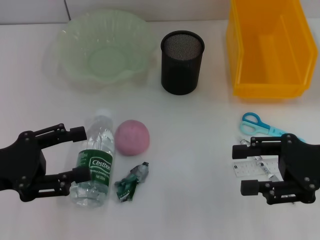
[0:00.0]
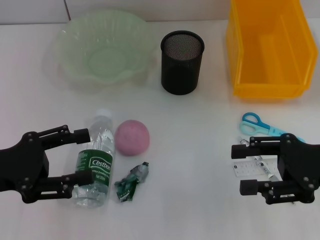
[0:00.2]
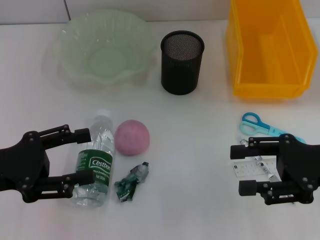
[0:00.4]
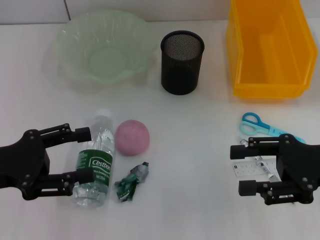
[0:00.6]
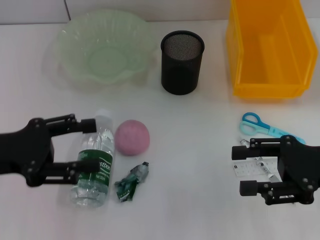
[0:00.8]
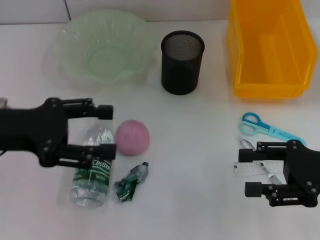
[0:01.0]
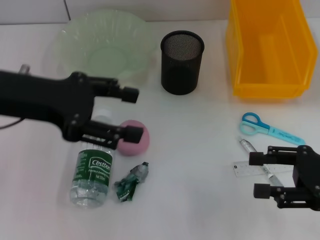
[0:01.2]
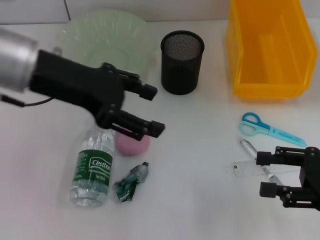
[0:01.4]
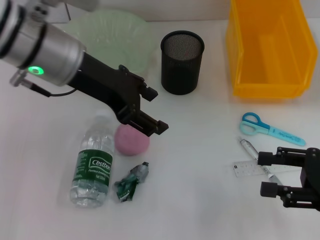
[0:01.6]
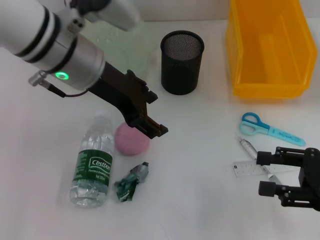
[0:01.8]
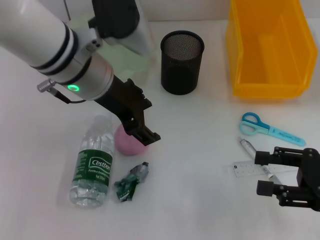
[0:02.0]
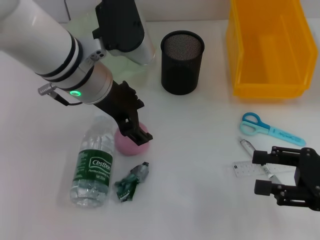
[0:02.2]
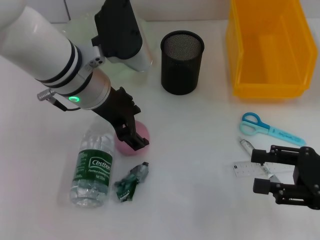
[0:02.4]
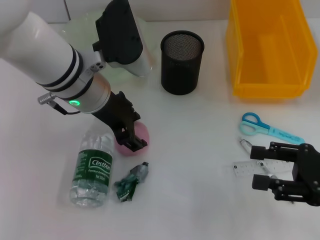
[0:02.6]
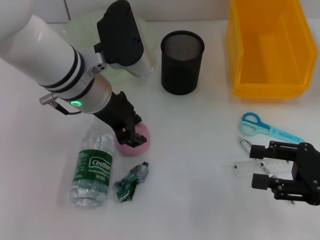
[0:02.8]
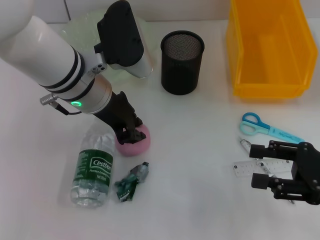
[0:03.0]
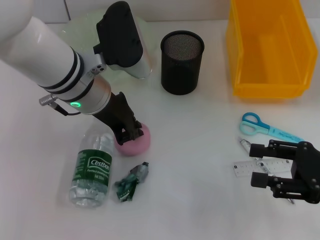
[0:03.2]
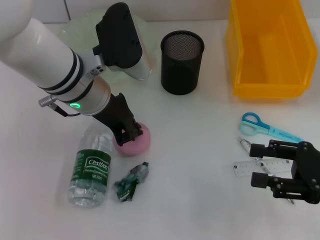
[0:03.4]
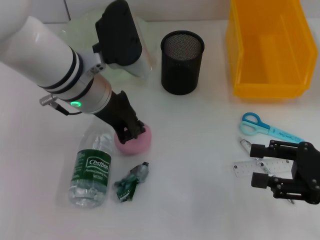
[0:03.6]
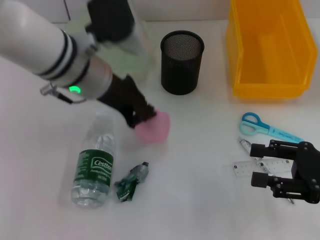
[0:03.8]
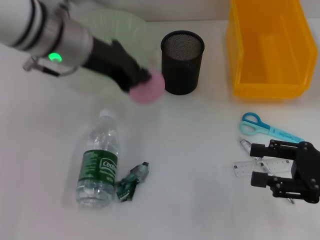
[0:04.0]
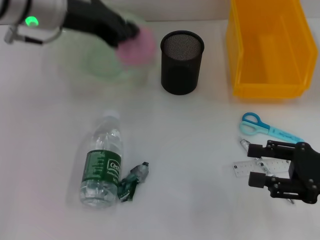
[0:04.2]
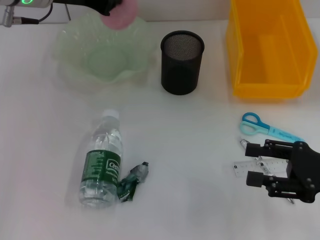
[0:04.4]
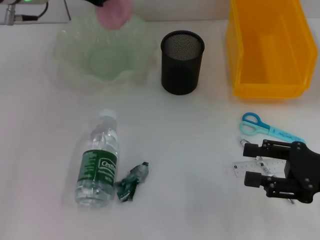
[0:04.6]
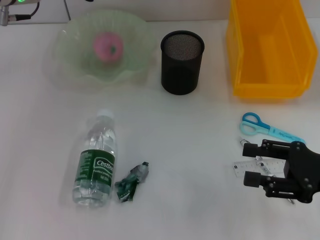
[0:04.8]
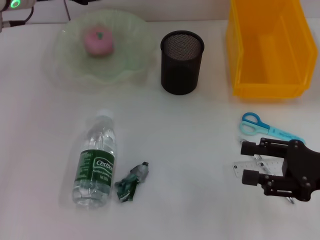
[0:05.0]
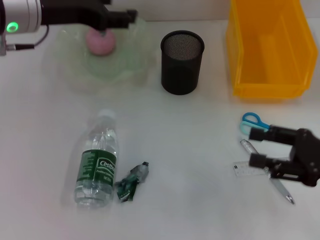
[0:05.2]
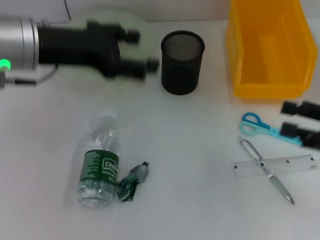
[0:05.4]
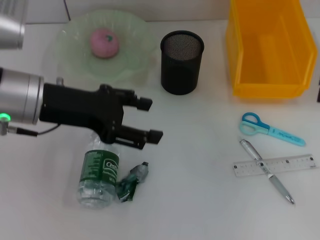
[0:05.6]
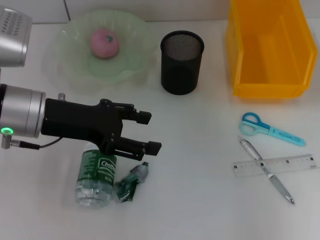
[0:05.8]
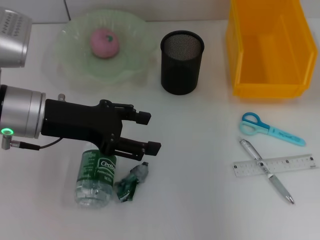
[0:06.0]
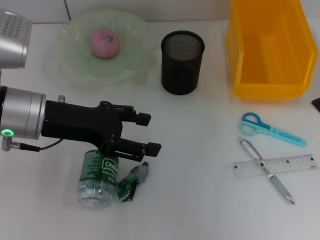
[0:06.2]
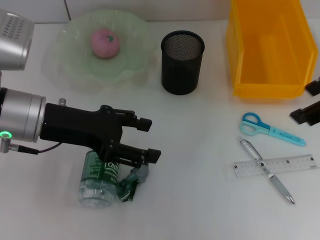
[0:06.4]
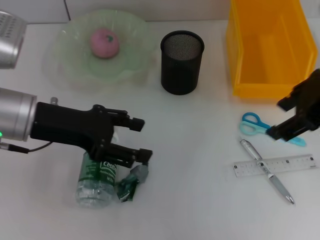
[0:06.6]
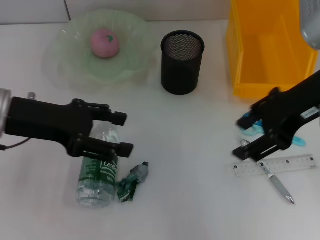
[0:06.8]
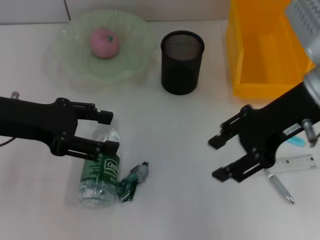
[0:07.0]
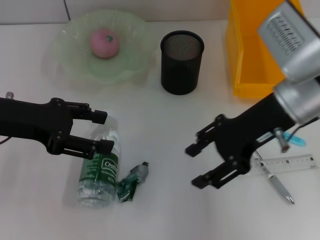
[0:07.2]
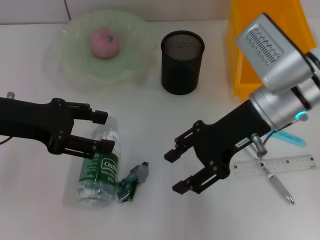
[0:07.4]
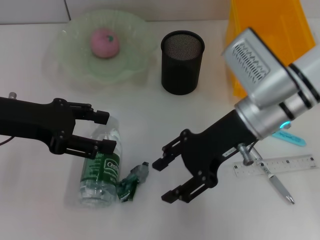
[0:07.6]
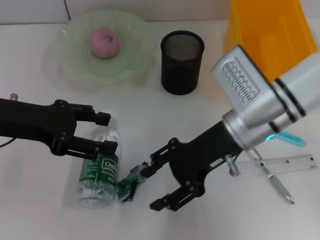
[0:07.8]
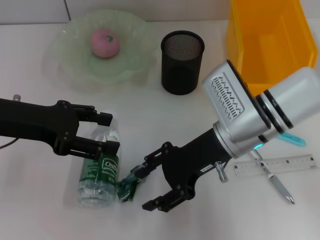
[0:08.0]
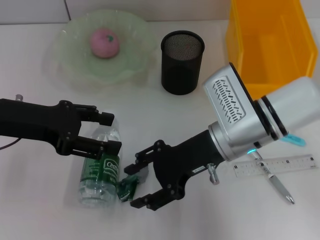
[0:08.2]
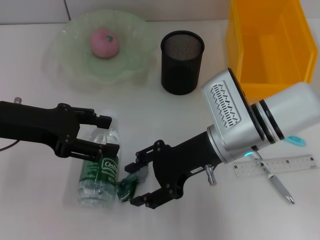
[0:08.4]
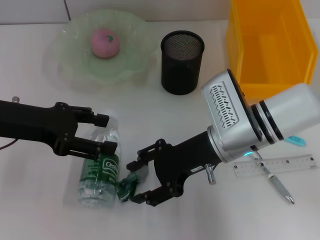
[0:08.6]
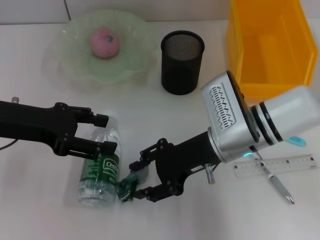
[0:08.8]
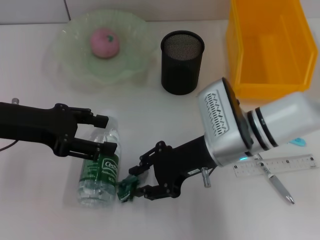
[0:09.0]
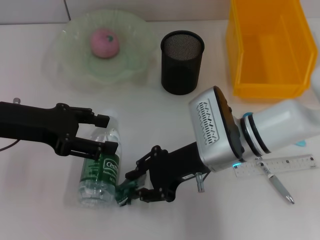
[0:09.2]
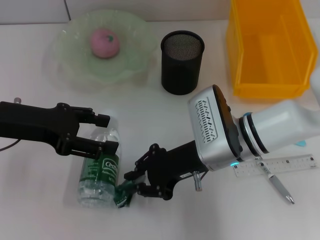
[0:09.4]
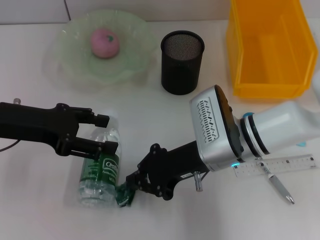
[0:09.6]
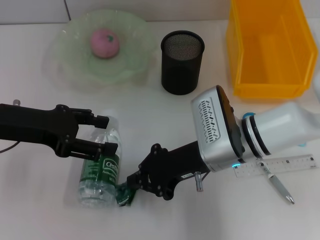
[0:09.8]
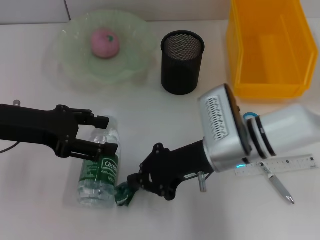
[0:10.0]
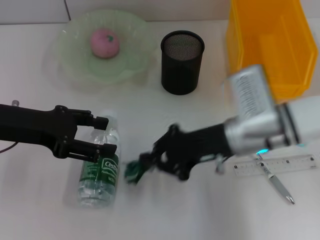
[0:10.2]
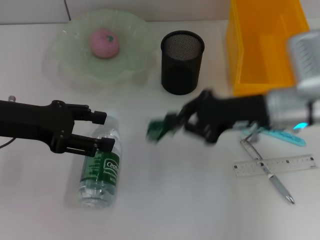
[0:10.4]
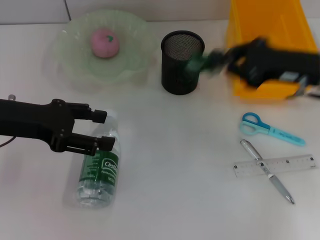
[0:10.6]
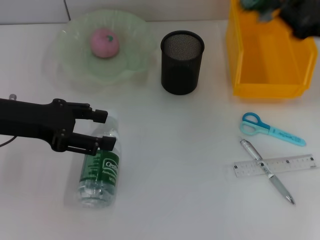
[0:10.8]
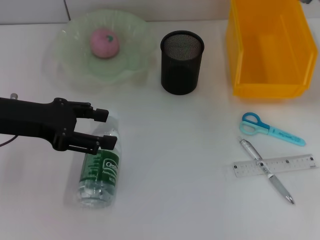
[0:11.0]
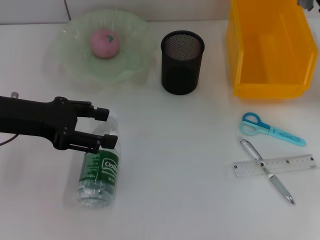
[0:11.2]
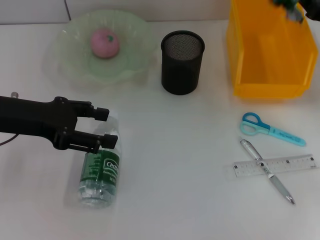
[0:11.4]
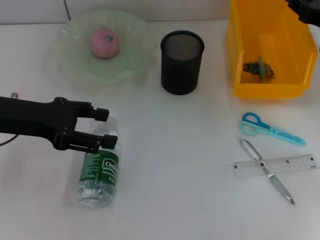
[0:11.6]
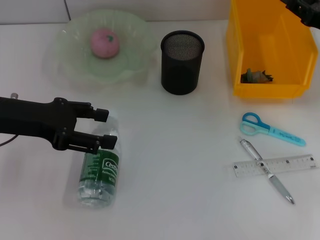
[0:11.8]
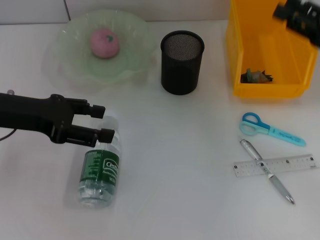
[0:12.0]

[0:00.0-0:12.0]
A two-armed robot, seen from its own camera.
Step, 0:00.0 to 0:03.4: Grab the peach with the left hand.
Step, 0:03.8 to 0:05.0: Place the peach into the fruit bowl with the left hand.
Step, 0:05.2 to 0:09.8: Grab the plastic with the right hand.
Step, 0:10.2 to 0:11.4: Place the plastic into the trash can with the right hand.
0:00.0 to 0:01.6: The left gripper goes approximately 25 cm to the right, forward and upward. Meanwhile the right gripper ends up roughly 5 cm from where it was.
0:01.6 to 0:03.0: The left gripper moves downward, about 5 cm.
0:03.0 to 0:04.4: The left gripper heads upward, to the left and forward, covering about 10 cm, and closes.
0:04.4 to 0:06.0: The right gripper heads upward, covering about 20 cm, while the left gripper goes some 15 cm backward and downward, and opens its fingers.
0:06.0 to 0:07.6: The left gripper goes some 5 cm to the left. Meanwhile the right gripper moves to the left and downward, approximately 25 cm.
0:07.6 to 0:09.0: The right gripper travels downward by roughly 5 cm.
0:09.0 to 0:10.4: The right gripper moves to the right, roughly 10 cm, and closes up.
0:10.4 to 0:12.0: The right gripper shifts some 15 cm to the right, and opens its fingers.

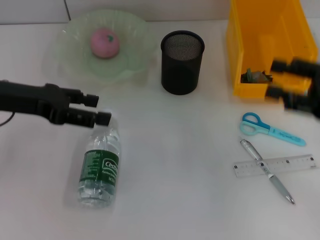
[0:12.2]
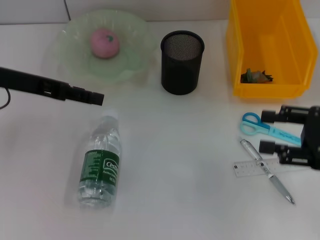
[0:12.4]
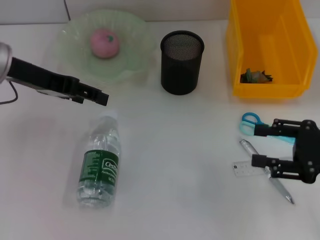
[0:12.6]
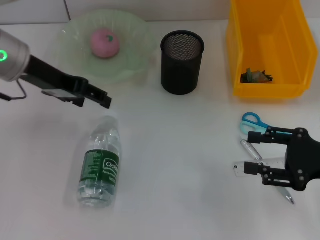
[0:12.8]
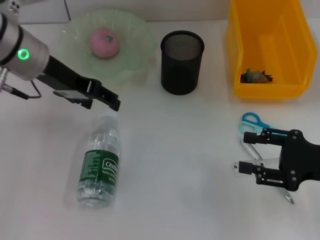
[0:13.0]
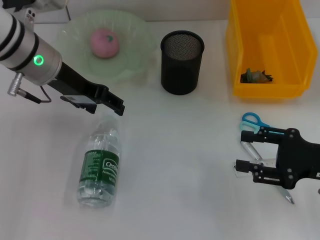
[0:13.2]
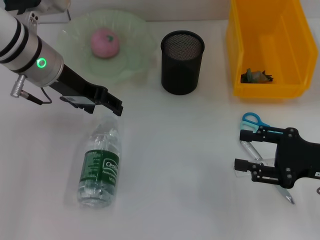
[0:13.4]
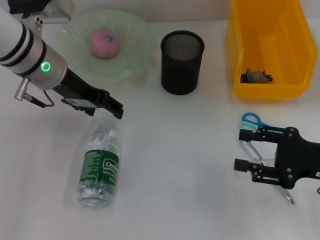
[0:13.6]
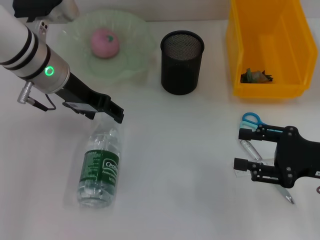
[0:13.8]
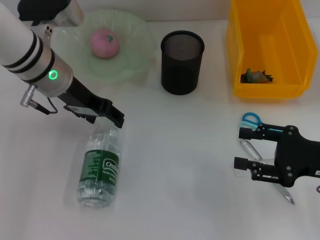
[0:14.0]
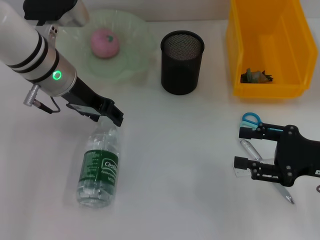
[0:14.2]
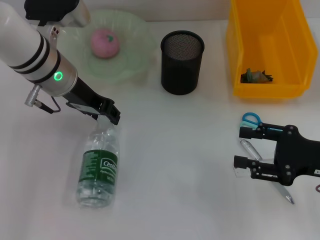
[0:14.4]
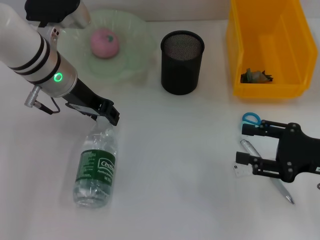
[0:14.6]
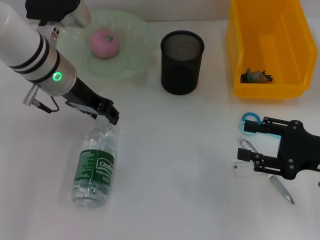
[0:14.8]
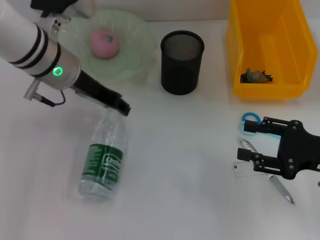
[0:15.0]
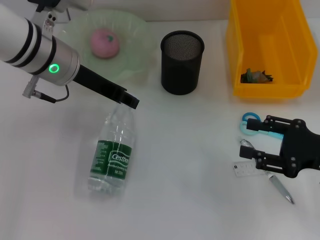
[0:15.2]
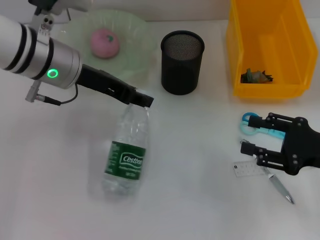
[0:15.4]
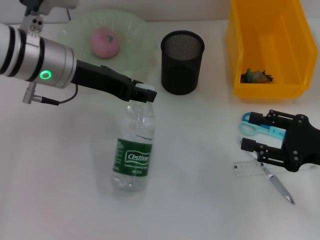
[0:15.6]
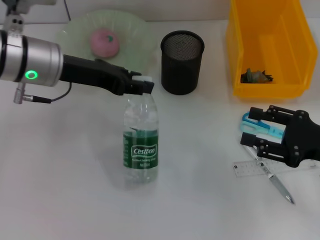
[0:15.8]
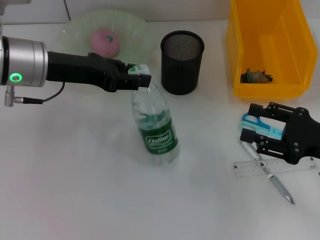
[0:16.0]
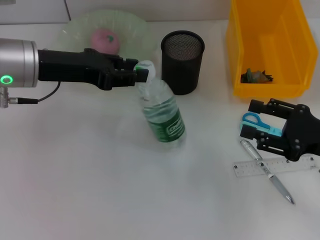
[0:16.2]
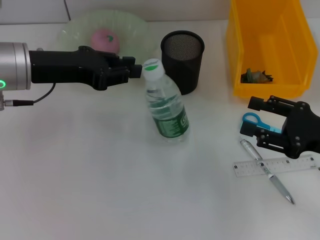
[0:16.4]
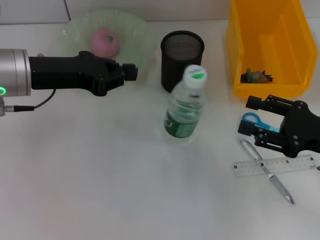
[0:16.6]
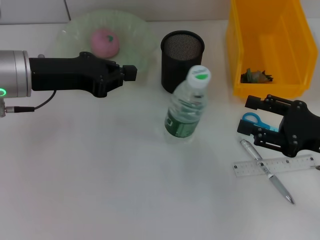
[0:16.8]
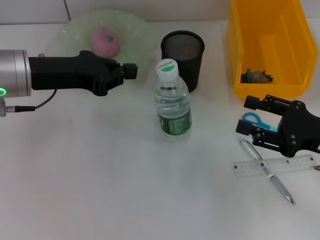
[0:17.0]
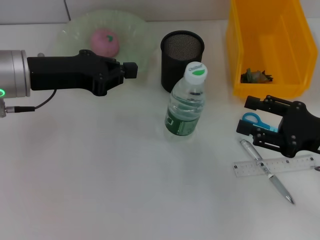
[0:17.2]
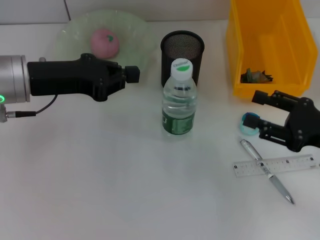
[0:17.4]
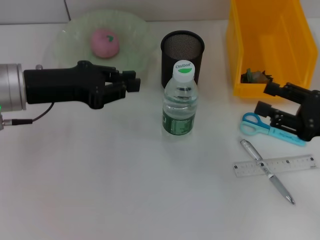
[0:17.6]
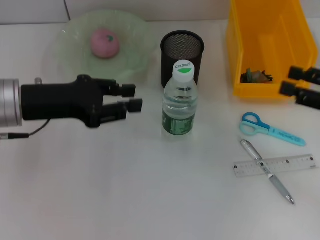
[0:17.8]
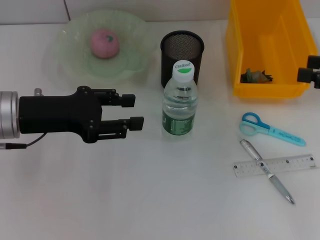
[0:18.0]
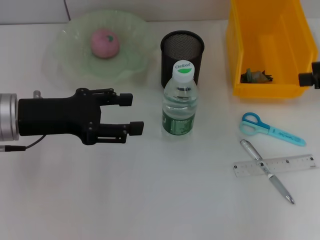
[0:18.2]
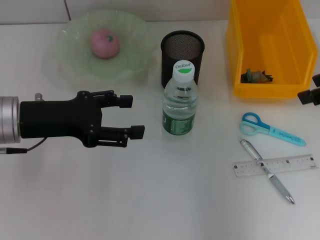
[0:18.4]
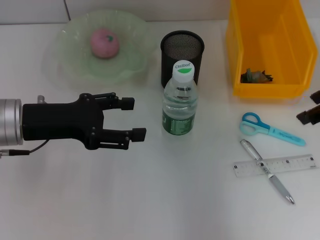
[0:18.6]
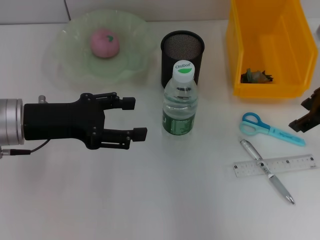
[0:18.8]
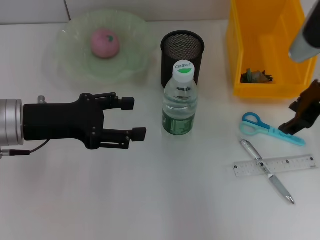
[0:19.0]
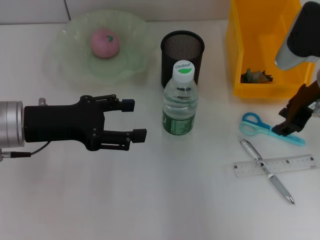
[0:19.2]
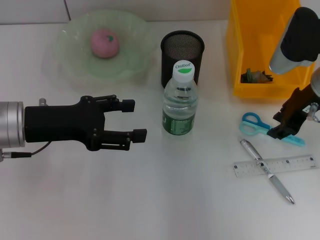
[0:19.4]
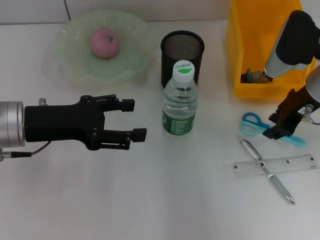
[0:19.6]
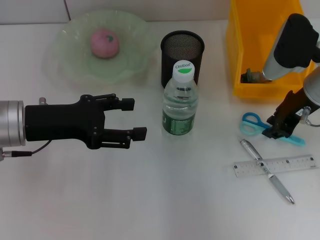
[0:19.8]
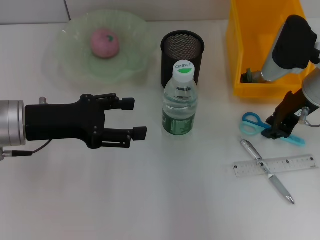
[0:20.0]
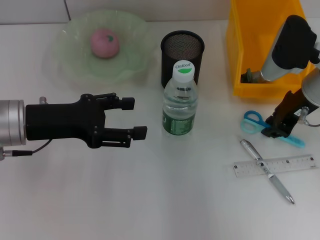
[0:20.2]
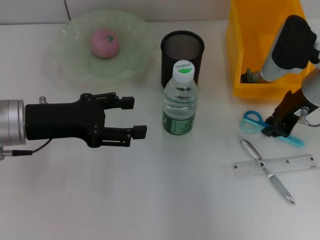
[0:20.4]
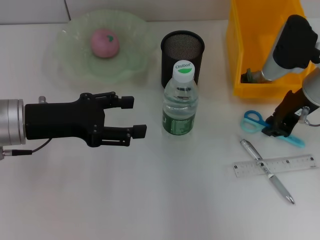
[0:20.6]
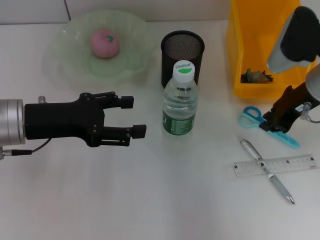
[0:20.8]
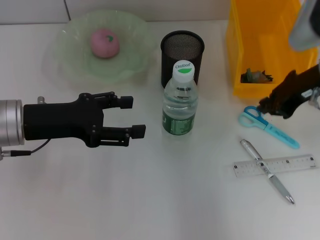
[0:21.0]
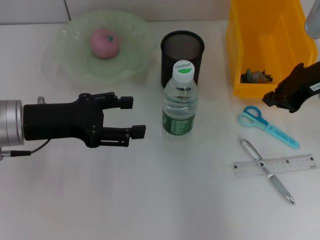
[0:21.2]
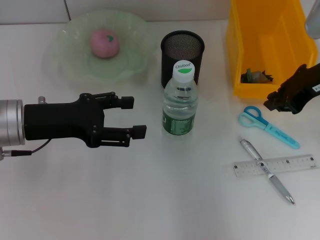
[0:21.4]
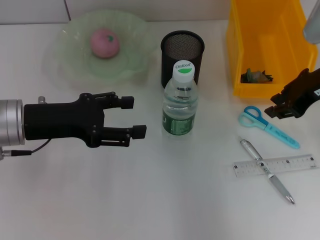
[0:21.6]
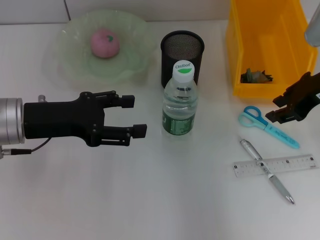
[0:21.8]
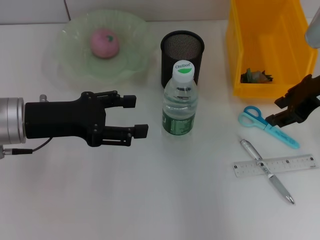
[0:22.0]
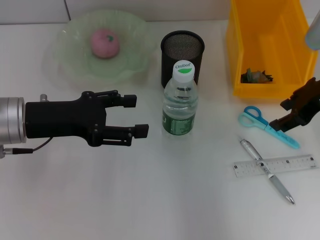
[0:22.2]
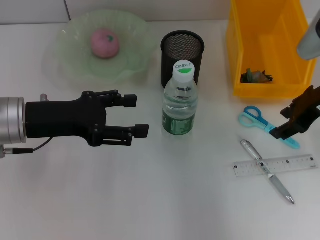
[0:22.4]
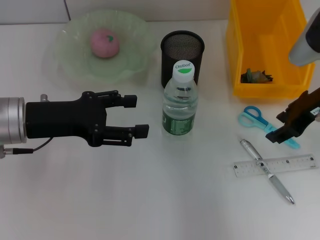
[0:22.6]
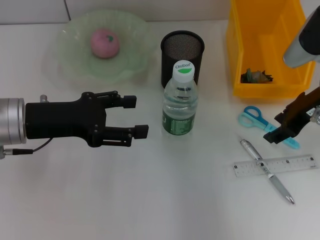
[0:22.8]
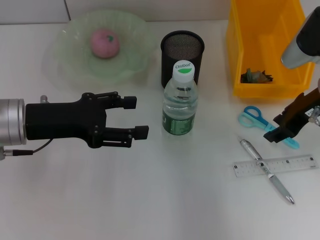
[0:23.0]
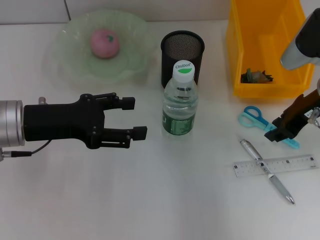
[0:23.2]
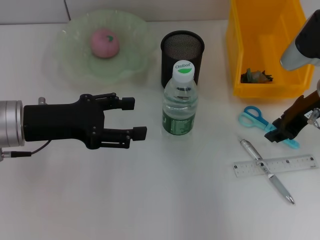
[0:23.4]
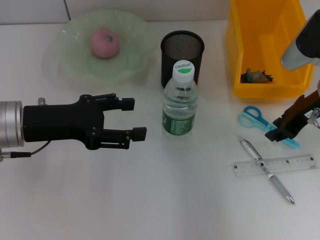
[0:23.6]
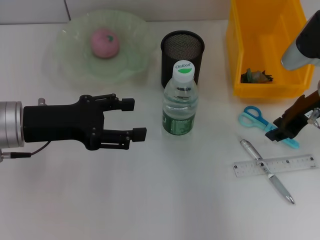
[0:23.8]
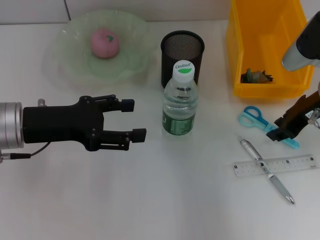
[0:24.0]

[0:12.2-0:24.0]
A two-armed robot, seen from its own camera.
Step, 0:12.2 to 0:14.4: Grab the water bottle with the left hand.
Step, 0:14.6 to 0:17.0: Place the water bottle on the table with the left hand.
0:12.2 to 0:13.6: The right gripper heads downward, covering roughly 5 cm. The left gripper moves to the right and forward, roughly 10 cm.
0:15.2 to 0:16.6: The left gripper is displaced to the left by some 5 cm.
0:16.6 to 0:18.2: The left gripper ends up some 5 cm from where it was, and opens its fingers, while the right gripper is displaced upward and forward by about 15 cm.
0:18.2 to 0:19.6: The right gripper shifts about 15 cm to the left, downward and forward.
0:19.6 to 0:21.0: The right gripper closes.
0:21.0 to 0:22.6: The right gripper opens up.
0:22.6 to 0:24.0: The grippers make only small movements.
